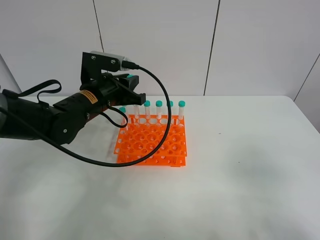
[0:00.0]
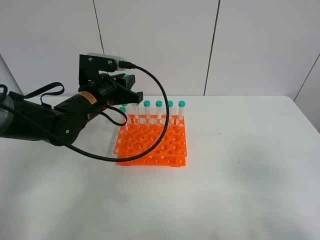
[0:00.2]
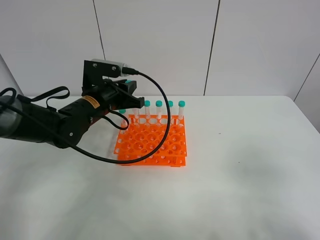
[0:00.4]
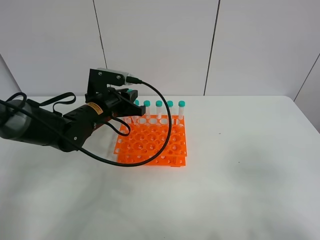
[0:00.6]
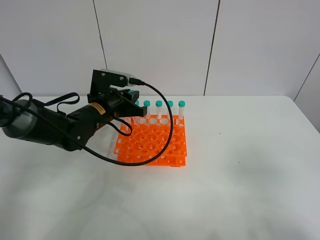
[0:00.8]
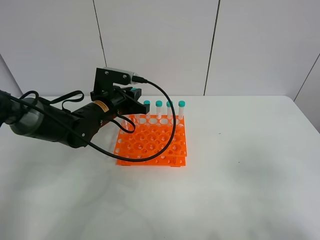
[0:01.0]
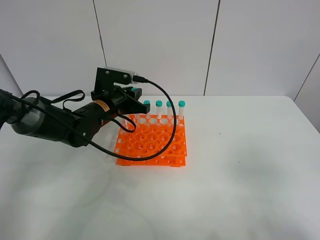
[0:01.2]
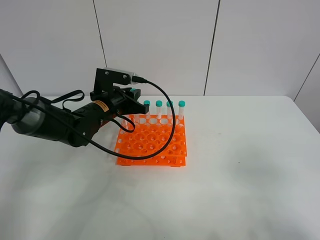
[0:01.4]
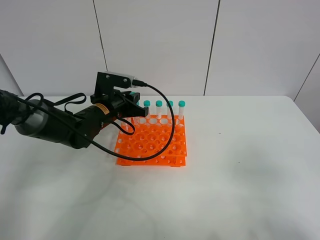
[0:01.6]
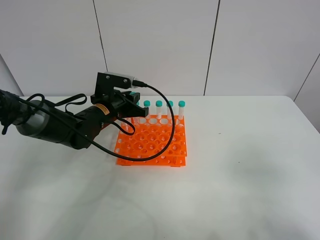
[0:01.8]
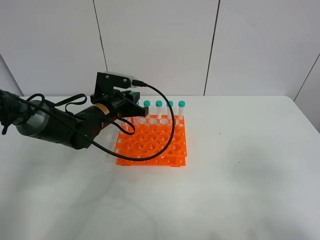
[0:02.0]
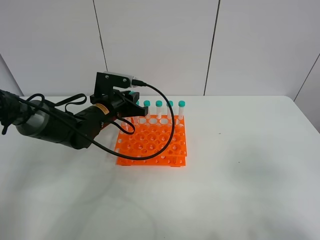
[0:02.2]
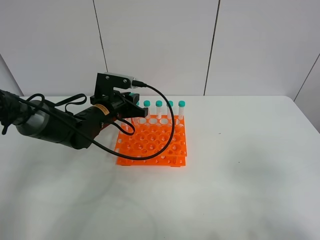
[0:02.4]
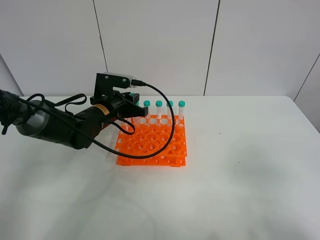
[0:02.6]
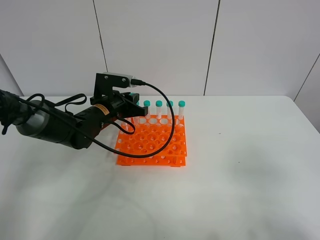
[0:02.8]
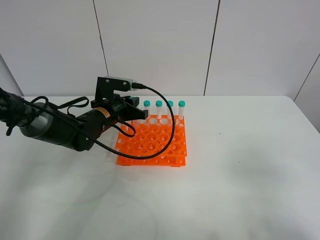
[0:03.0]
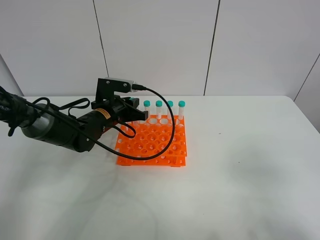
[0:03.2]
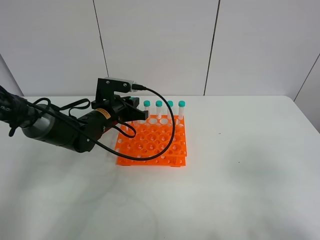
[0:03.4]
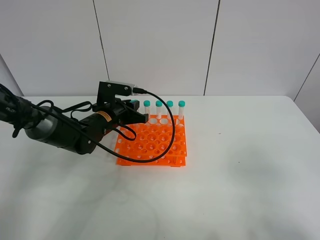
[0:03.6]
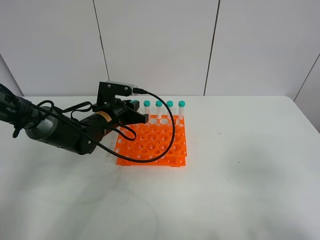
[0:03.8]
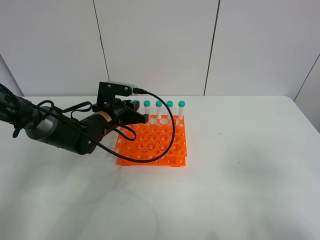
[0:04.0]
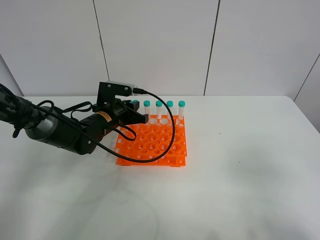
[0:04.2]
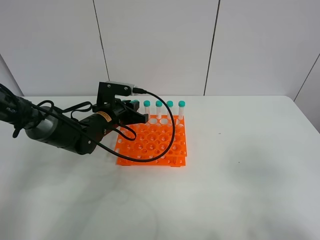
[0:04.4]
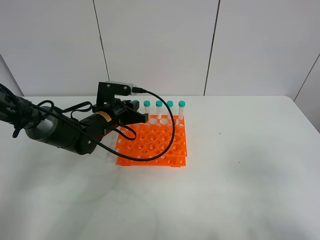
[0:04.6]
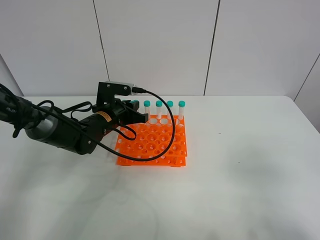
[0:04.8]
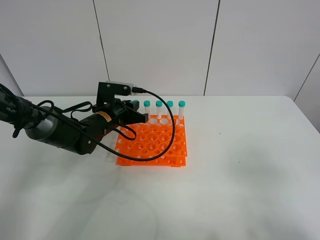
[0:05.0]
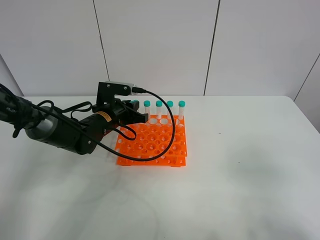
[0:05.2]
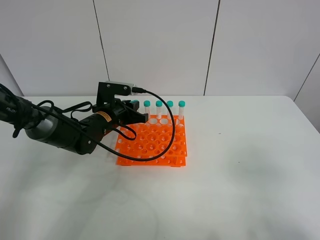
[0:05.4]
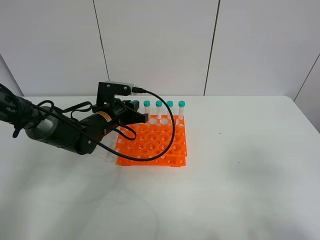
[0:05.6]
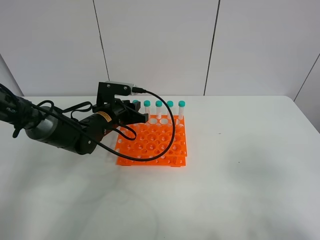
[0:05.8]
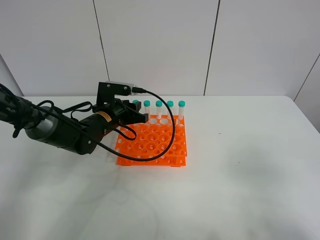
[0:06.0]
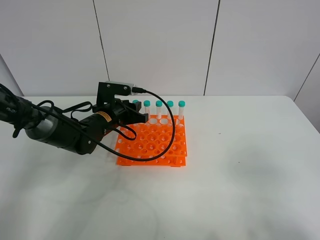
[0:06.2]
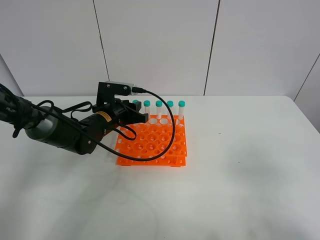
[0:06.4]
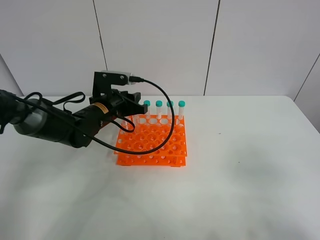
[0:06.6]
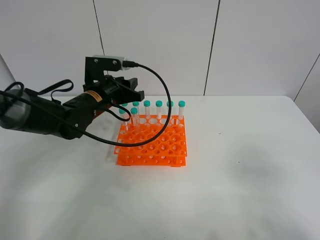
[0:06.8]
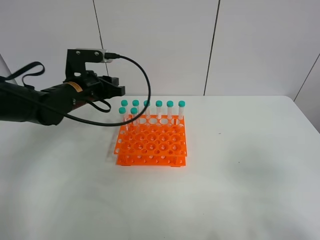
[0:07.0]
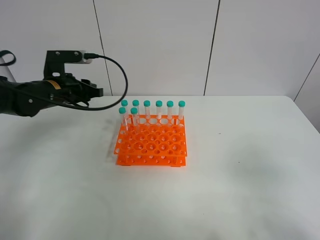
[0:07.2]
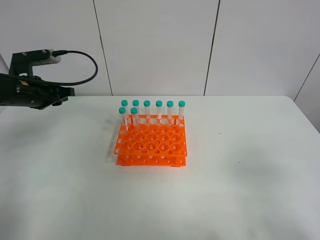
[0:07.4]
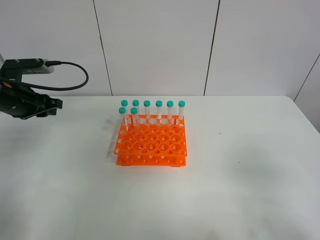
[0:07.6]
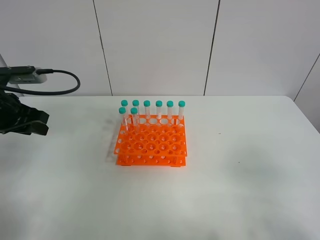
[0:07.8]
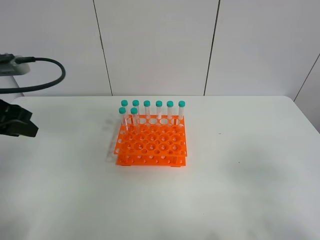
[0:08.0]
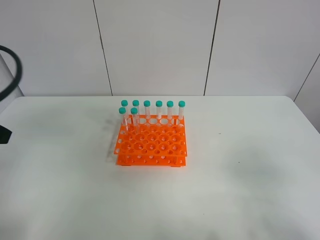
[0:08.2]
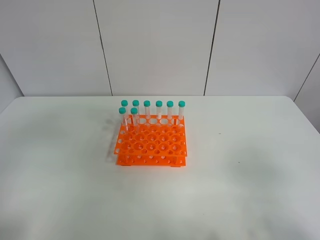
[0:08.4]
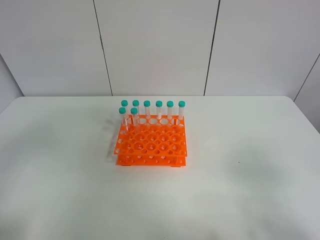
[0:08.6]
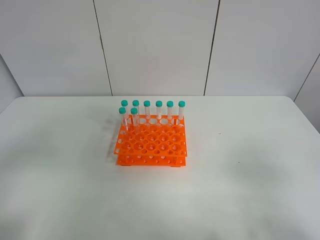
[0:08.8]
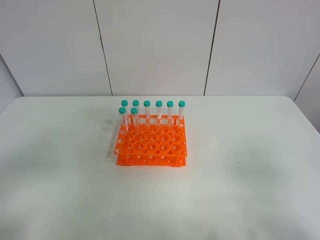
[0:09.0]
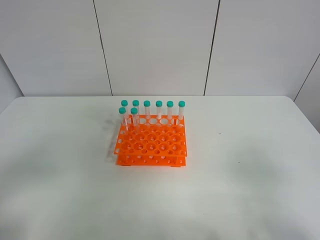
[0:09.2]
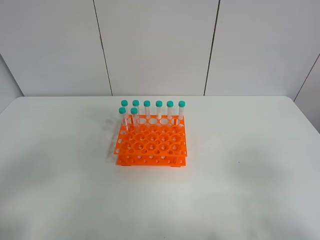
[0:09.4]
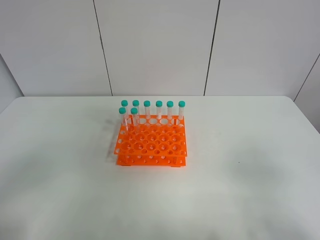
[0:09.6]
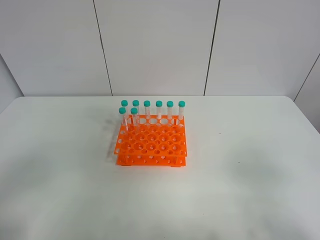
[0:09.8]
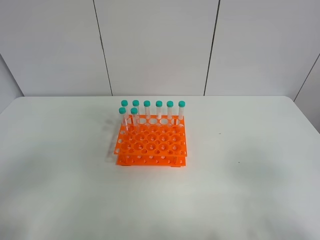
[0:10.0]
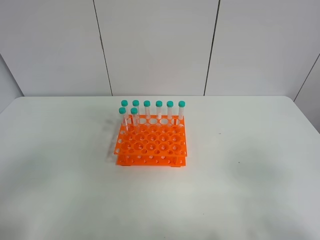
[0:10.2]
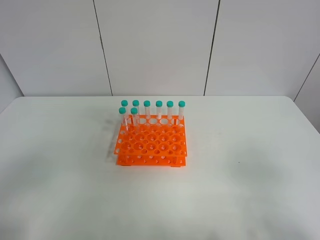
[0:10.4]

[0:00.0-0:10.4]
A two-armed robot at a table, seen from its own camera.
Task of the whole recording: Put the test tube on the table back onto the test tube rack.
Step, 0:00.0 to 0:06.0: Place the test tube on the test tube rack with the left gripper.
0:00.0 to 0:01.4: The left gripper ends up roughly 5 cm from where it was.
0:01.4 to 0:03.0: There are only small adjustments of the grippers.
0:03.0 to 0:04.4: Neither gripper changes place.
0:06.0 to 0:07.4: The left gripper is displaced to the left and upward by some 20 cm.
0:07.4 to 0:09.0: The left gripper goes some 30 cm backward.

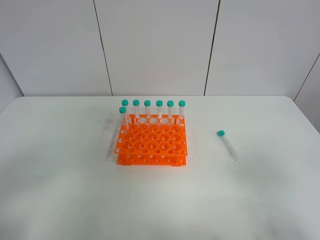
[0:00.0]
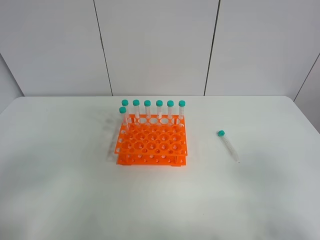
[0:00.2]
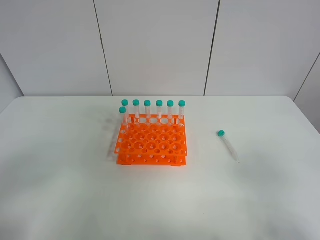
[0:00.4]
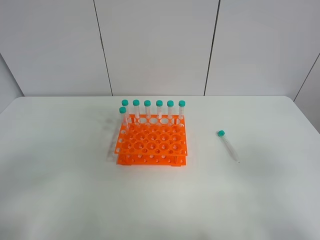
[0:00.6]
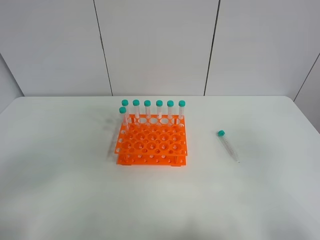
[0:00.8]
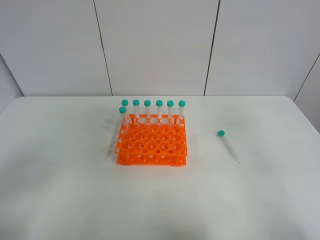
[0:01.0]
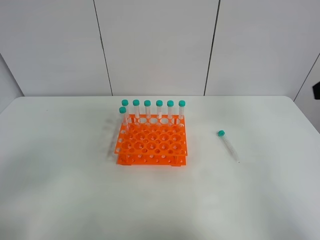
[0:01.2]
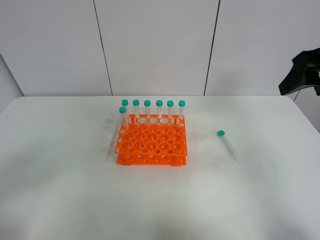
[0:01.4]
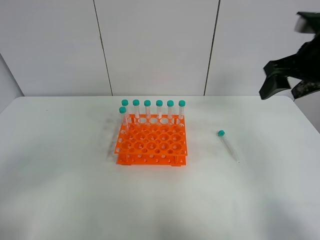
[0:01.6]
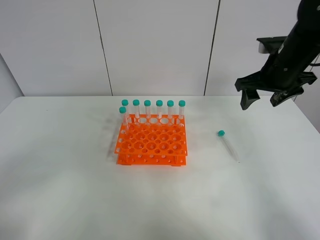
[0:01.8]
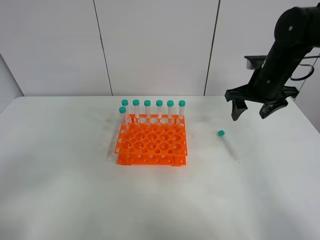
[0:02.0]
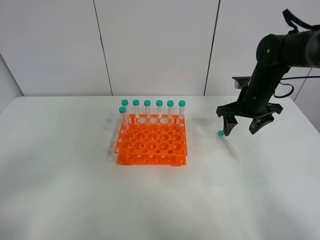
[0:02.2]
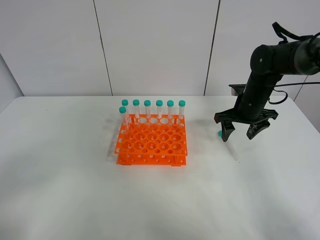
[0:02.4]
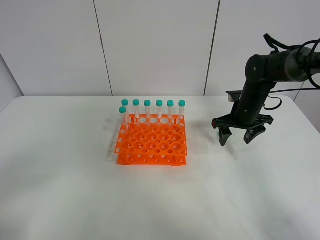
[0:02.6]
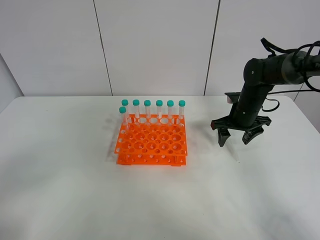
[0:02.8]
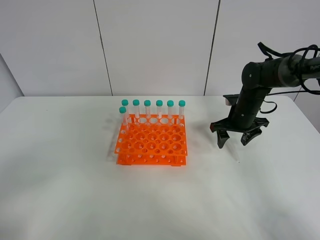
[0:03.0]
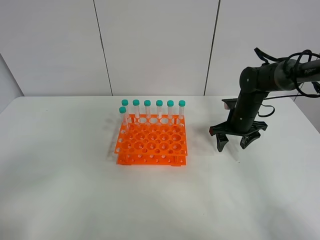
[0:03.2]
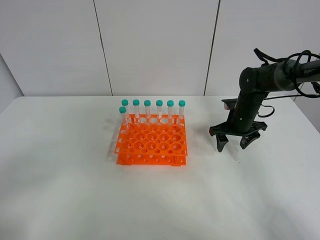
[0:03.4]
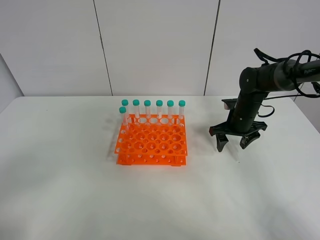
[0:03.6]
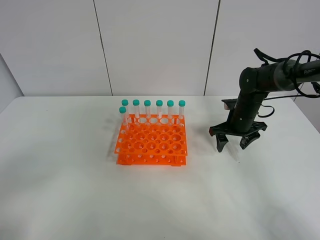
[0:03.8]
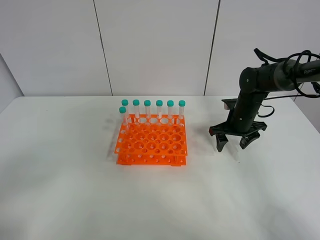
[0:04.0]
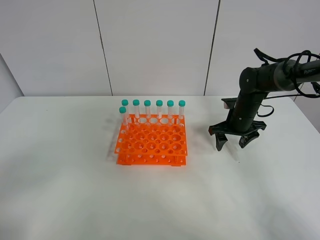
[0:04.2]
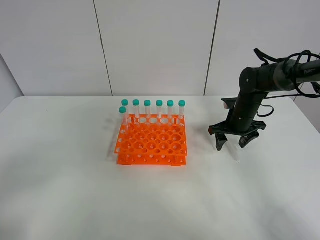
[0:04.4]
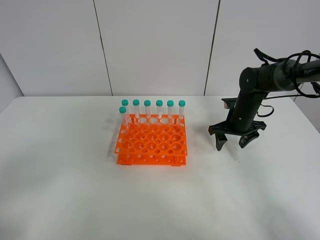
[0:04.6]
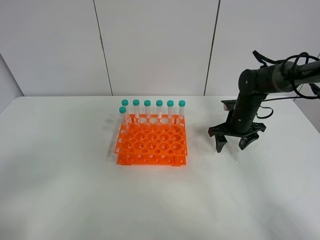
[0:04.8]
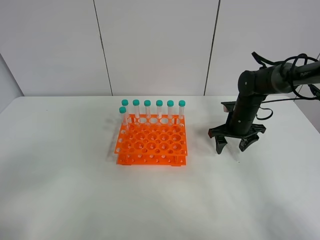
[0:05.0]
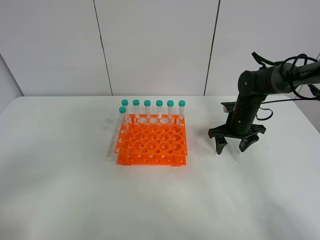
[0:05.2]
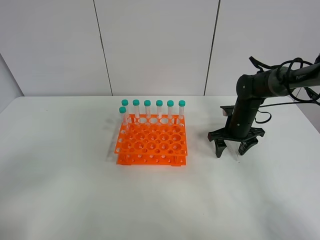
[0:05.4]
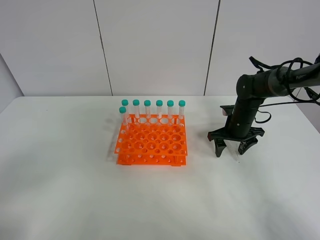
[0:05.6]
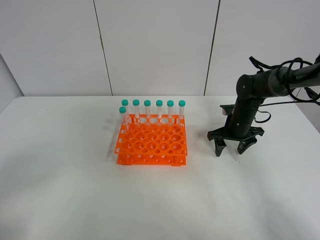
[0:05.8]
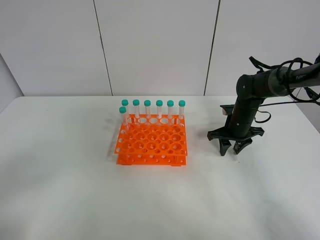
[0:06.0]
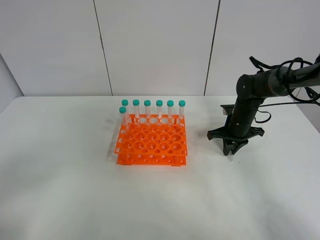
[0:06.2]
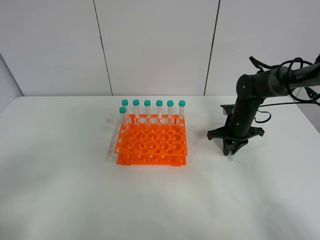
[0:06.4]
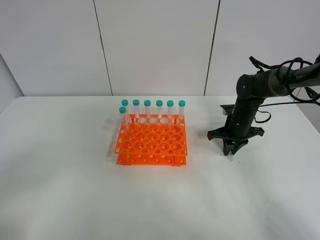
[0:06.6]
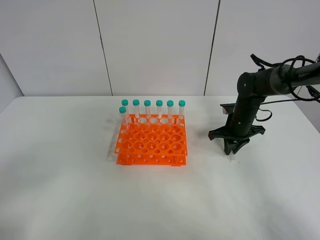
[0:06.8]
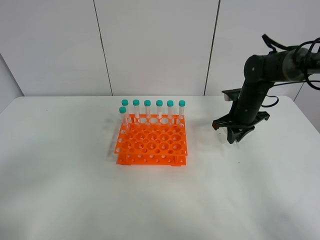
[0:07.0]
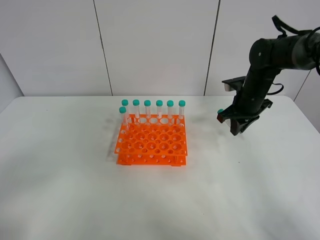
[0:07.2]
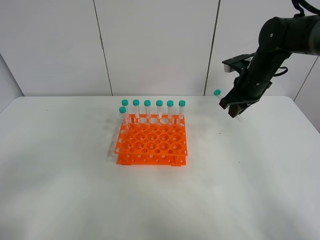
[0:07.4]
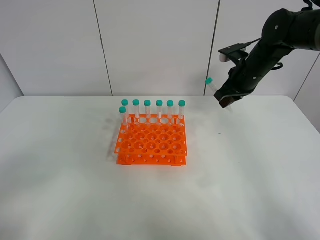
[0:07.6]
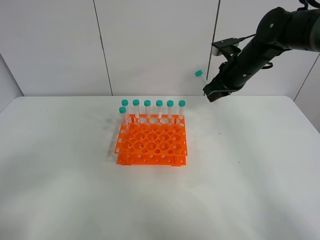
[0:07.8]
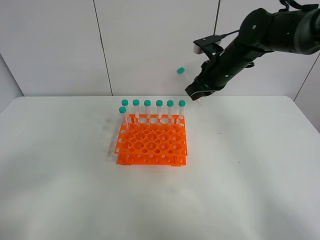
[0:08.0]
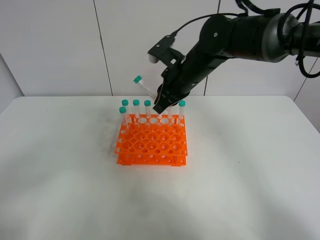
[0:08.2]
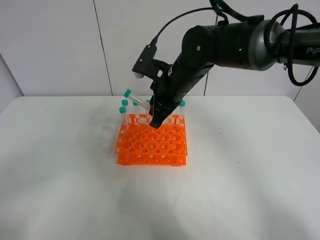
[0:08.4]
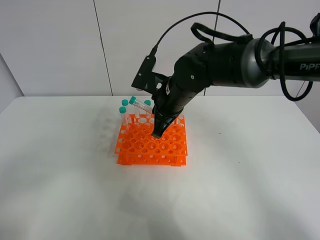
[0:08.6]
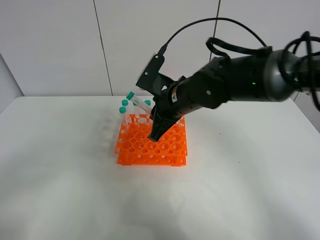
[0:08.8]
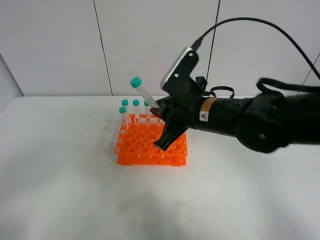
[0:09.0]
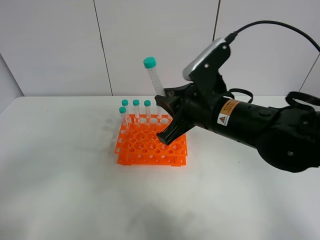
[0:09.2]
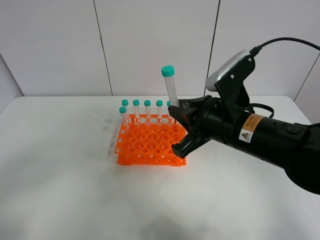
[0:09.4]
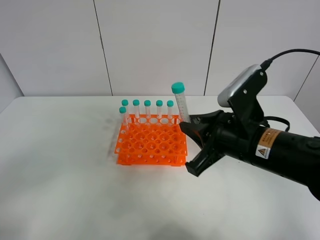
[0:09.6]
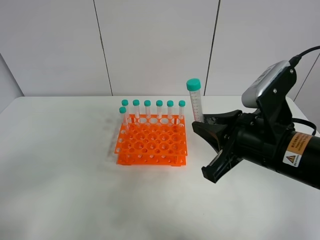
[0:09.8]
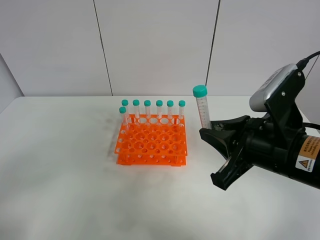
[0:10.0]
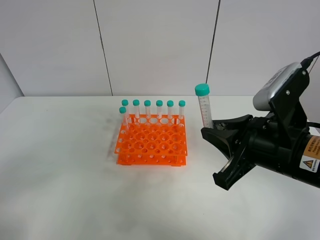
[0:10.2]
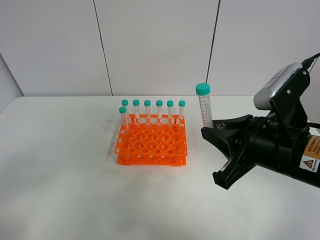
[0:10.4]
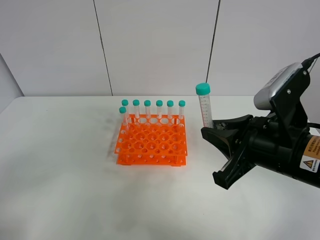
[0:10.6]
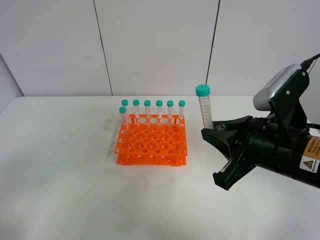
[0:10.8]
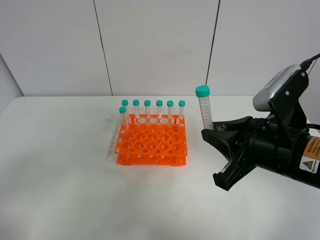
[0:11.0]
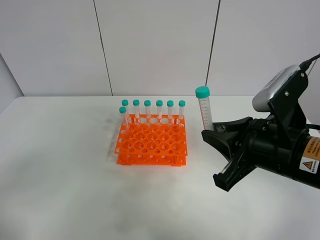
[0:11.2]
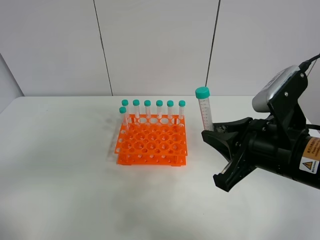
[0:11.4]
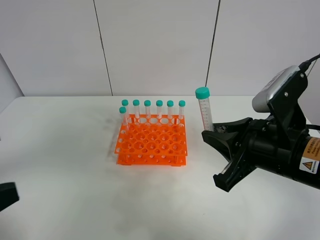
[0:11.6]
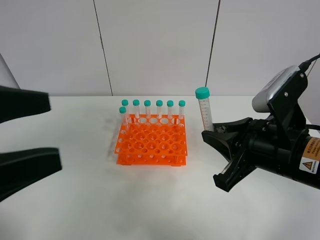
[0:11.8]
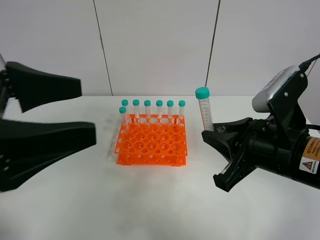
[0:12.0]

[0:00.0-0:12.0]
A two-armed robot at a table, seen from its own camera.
Task of the whole recording: Put the test tube on the table back onto the test tube rack.
Step, 0:00.0 to 0:06.4: Pick up the test tube with the right gripper.
0:00.0 to 0:01.6: The right gripper travels forward by approximately 30 cm.
0:01.6 to 0:03.0: The right gripper travels downward and forward by about 20 cm.
0:03.0 to 0:04.4: Both grippers stay about where they are.
0:04.4 to 0:06.0: The right gripper closes its fingers.
0:06.0 to 0:07.6: The right gripper heads upward, covering about 15 cm.
0:07.6 to 0:09.0: The right gripper shifts about 20 cm backward and to the left.
0:09.0 to 0:10.4: The right gripper heads backward and to the right, covering about 15 cm.
0:10.4 to 0:12.0: The left gripper heads forward, to the right and upward, covering roughly 20 cm.
